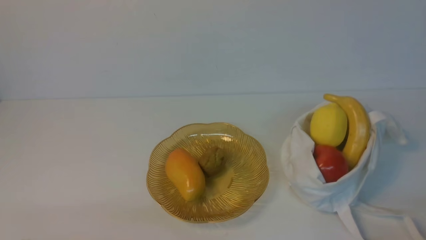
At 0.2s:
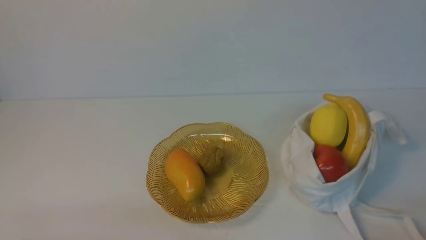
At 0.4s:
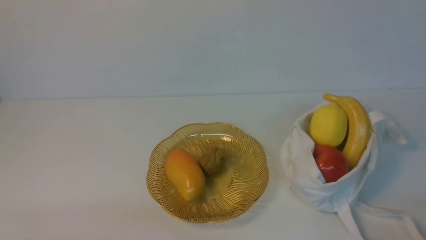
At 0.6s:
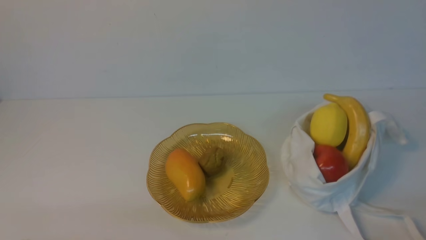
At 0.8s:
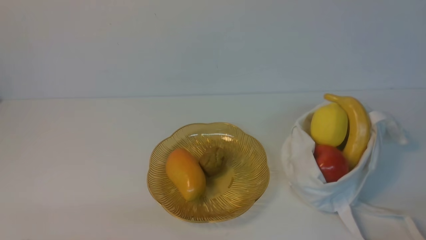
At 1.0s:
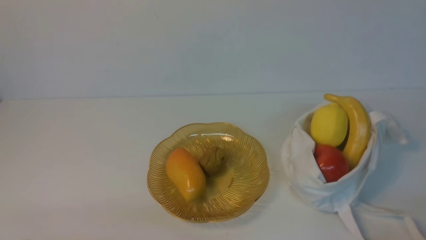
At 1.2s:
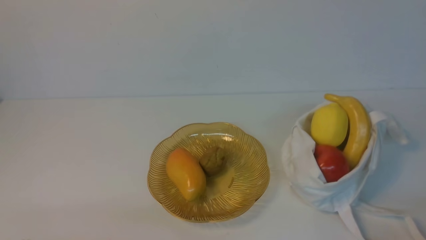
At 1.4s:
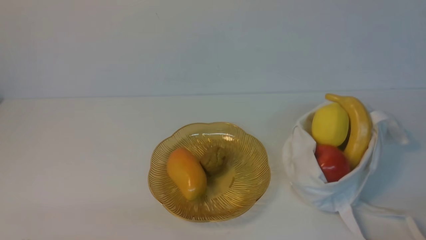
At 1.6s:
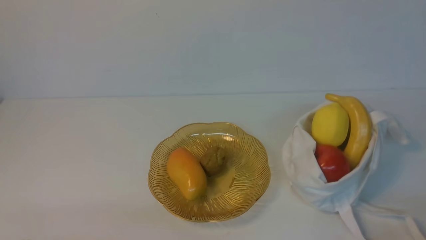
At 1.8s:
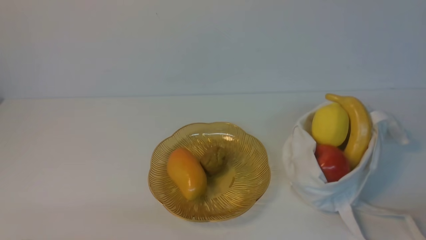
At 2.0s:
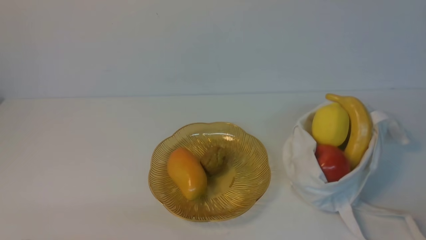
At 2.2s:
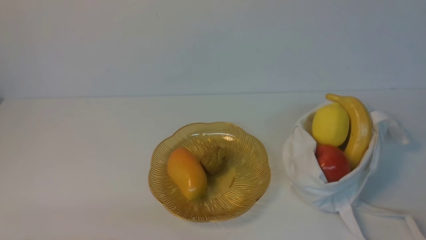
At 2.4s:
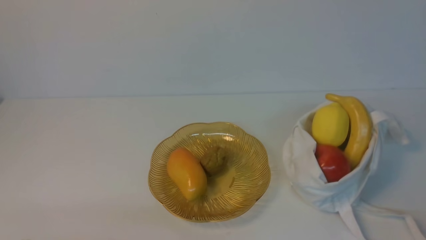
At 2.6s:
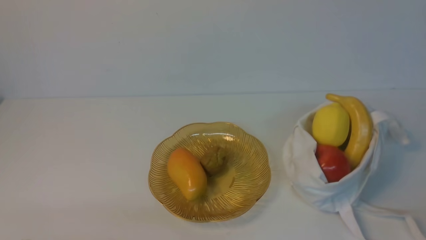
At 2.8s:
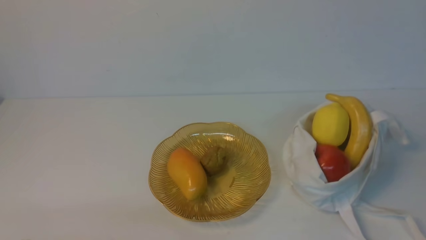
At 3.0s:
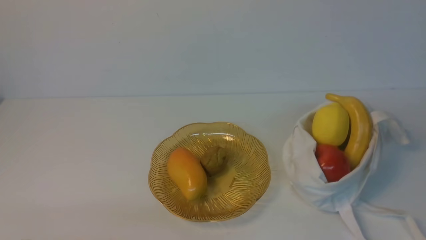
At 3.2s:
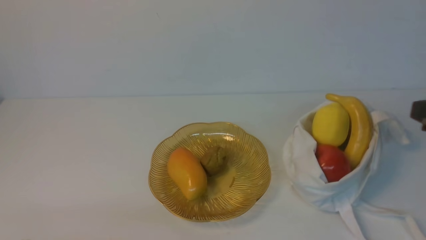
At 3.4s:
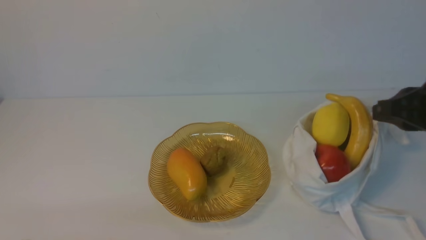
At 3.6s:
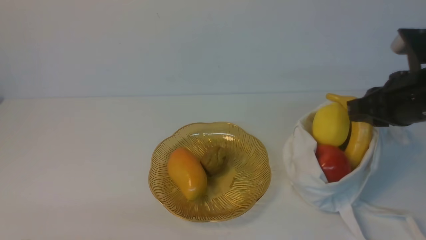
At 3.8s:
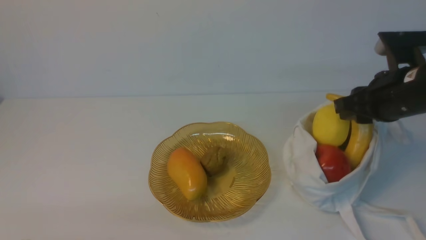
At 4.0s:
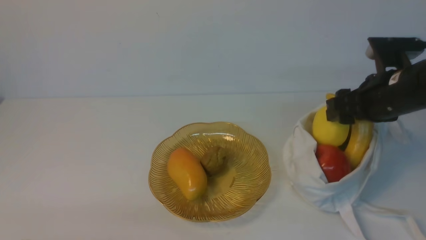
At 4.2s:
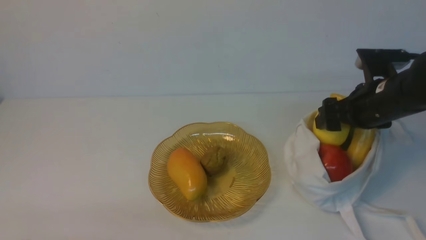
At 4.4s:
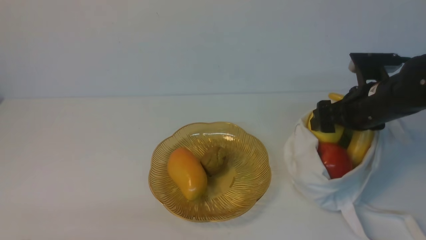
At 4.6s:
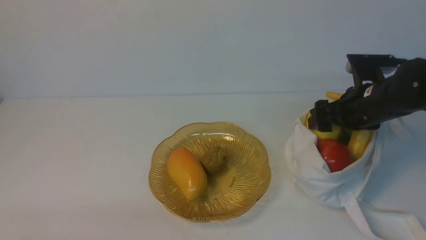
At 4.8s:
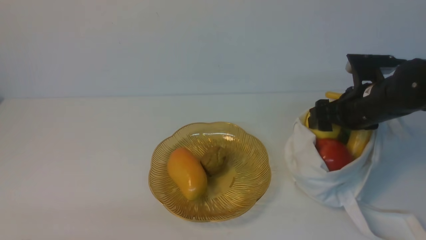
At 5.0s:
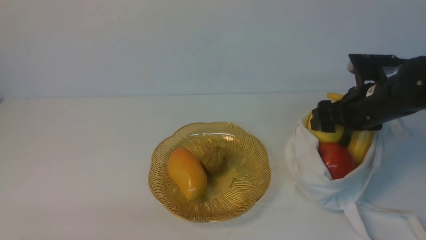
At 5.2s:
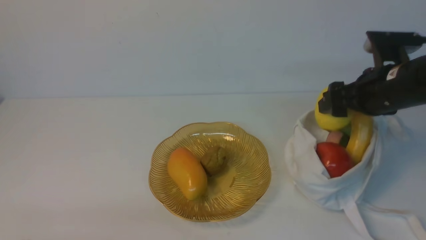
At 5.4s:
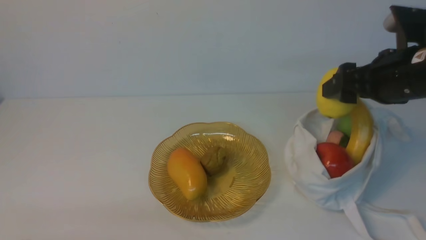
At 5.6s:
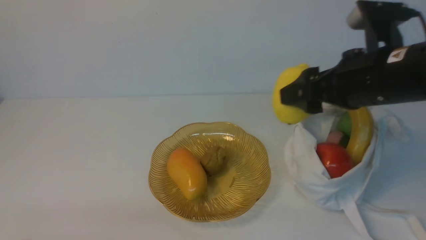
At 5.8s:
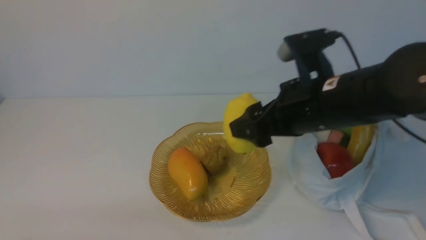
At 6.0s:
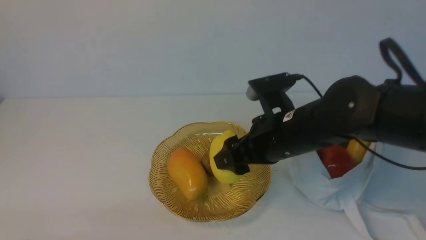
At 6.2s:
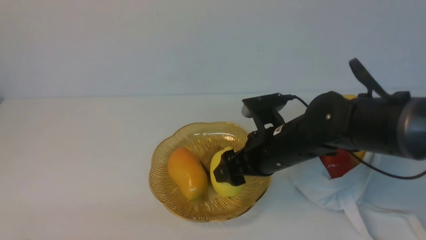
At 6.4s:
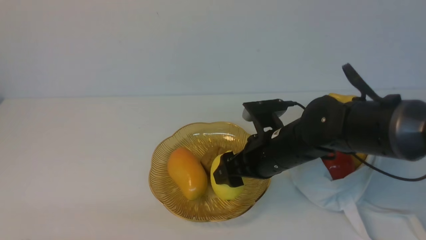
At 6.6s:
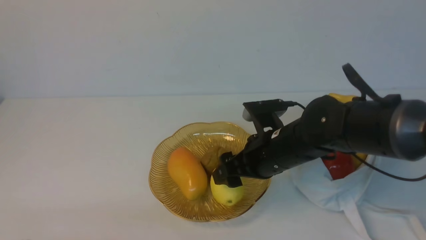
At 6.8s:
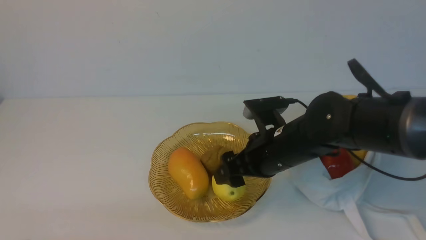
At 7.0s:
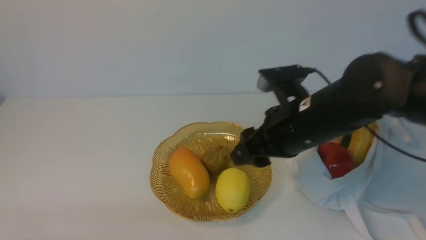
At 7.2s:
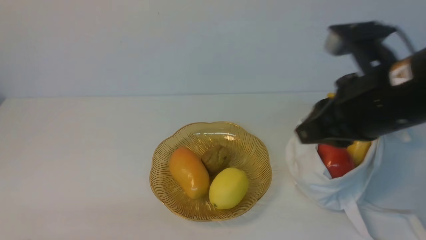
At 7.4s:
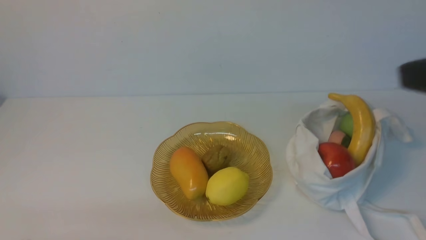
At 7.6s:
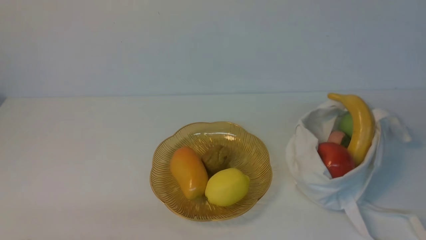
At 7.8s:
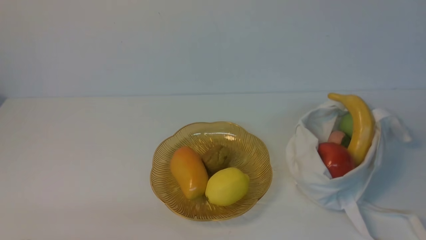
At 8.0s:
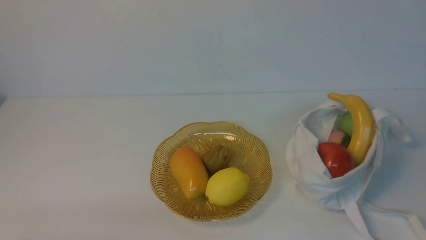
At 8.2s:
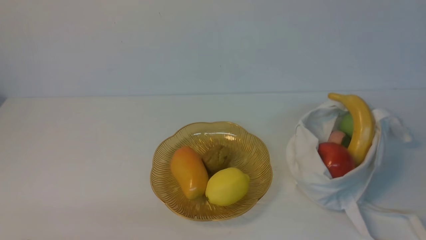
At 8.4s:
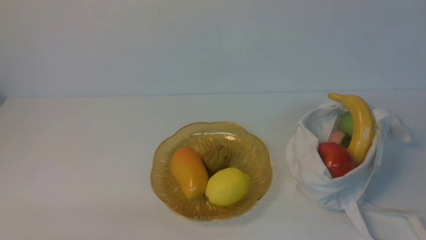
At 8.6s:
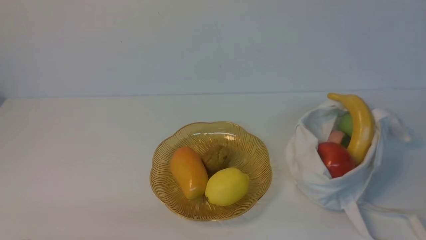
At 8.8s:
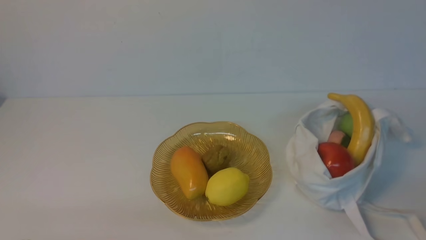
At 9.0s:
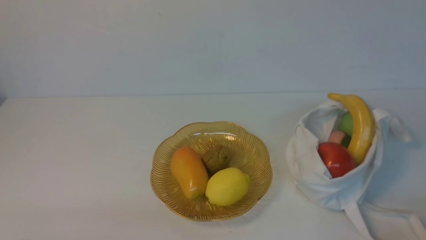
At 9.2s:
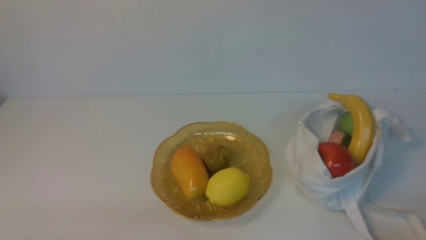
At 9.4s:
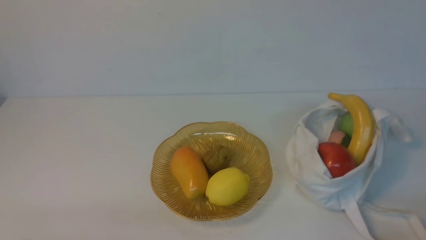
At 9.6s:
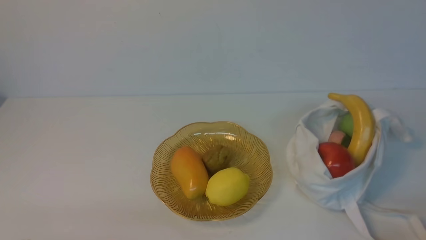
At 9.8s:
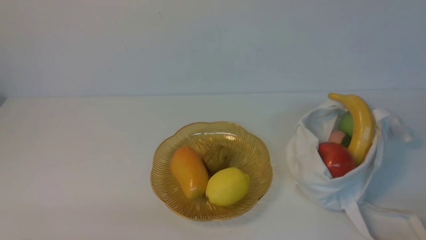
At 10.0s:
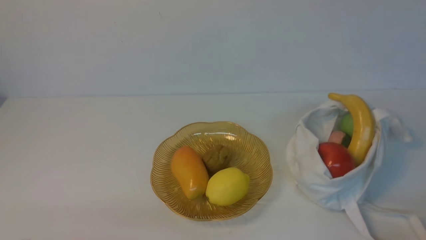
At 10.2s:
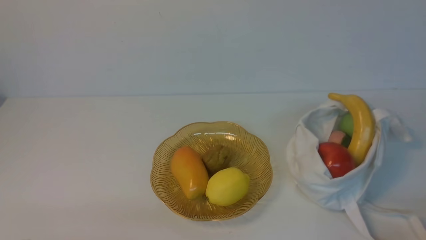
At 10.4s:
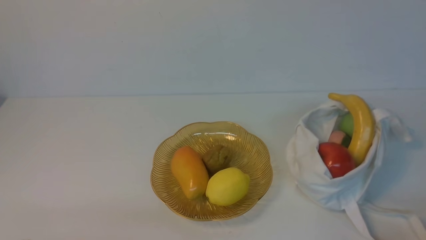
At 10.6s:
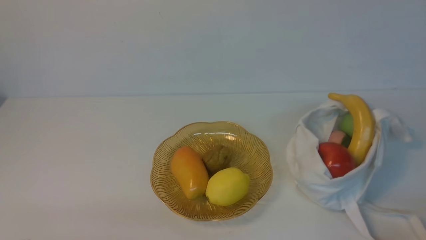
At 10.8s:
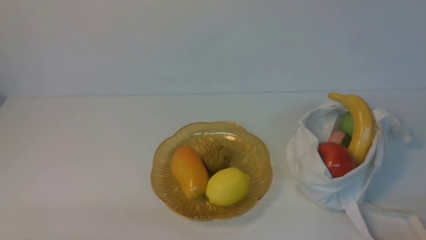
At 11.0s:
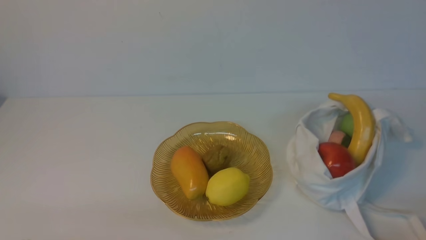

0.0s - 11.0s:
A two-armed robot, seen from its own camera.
Step, 0.0s - 5.0s: use the right arm to grab a lemon from the bag.
Step, 5.2s - 6.6s: use the right arm to put the lemon into the empty plate on the left.
3.2s - 4.8s: The right gripper goes about 20 cm forward and downward, and opens.
4.8s - 6.2s: The right gripper heads to the left, covering about 15 cm.
6.2s - 7.8s: The right gripper is displaced backward, to the right and upward by about 40 cm, and closes up.
9.4s - 11.0s: The two grippers keep their place.
